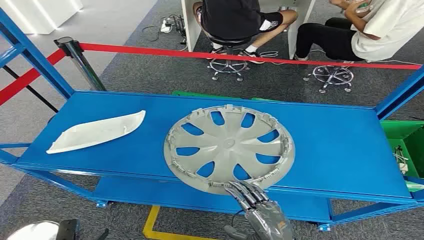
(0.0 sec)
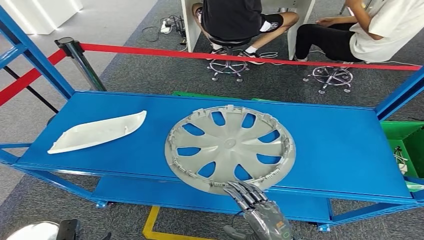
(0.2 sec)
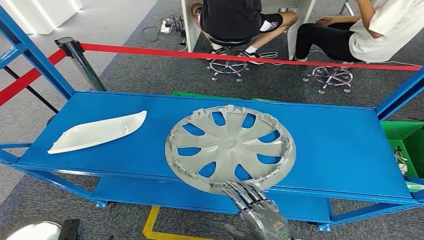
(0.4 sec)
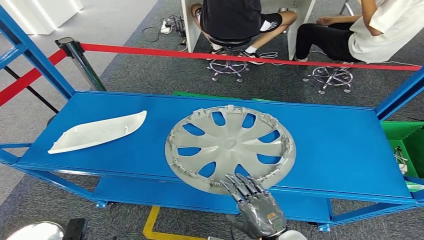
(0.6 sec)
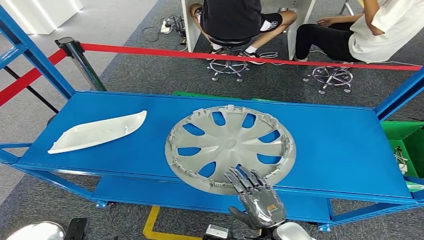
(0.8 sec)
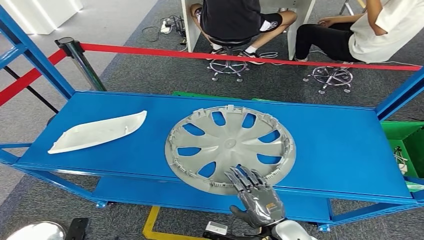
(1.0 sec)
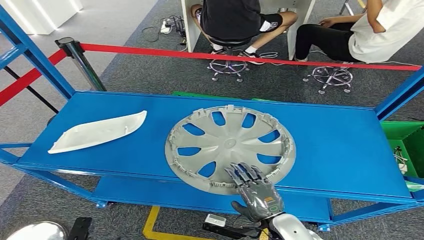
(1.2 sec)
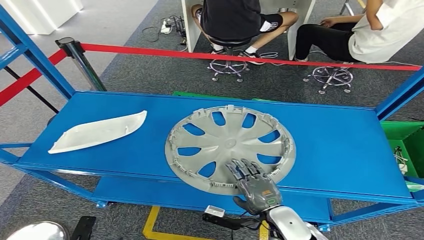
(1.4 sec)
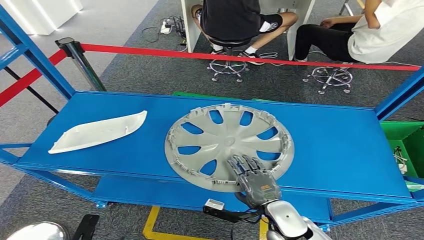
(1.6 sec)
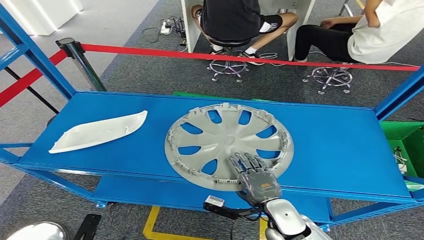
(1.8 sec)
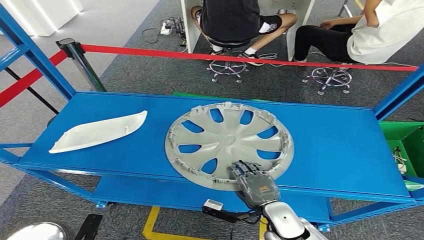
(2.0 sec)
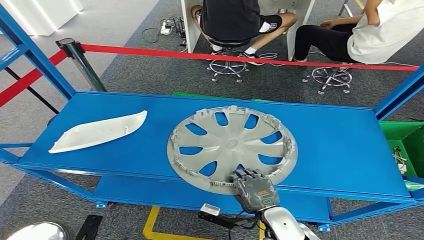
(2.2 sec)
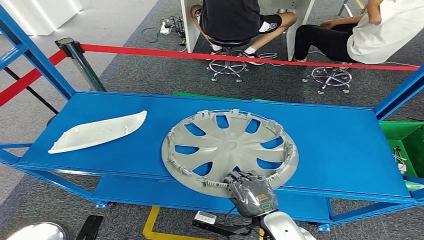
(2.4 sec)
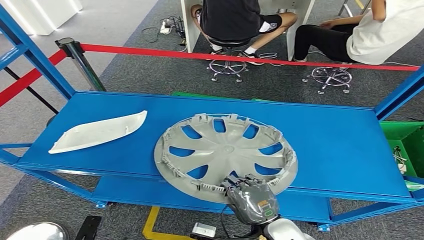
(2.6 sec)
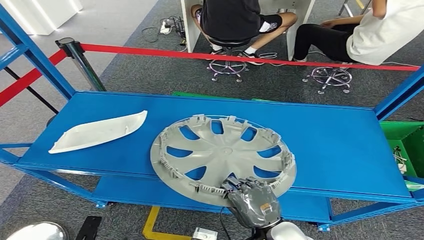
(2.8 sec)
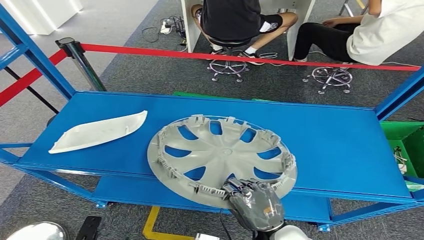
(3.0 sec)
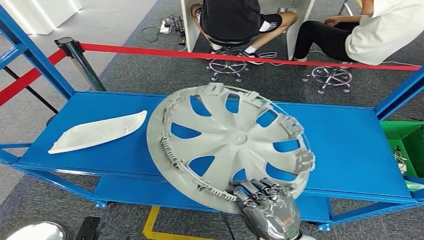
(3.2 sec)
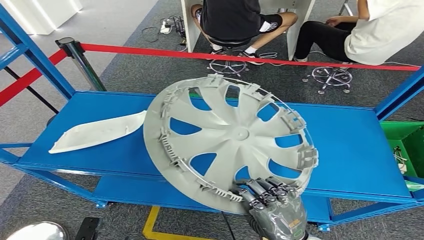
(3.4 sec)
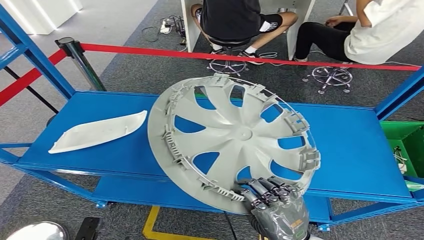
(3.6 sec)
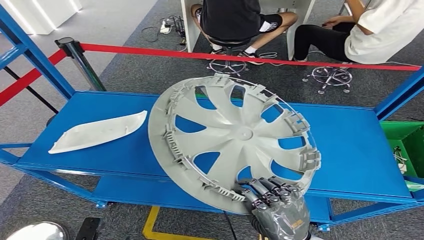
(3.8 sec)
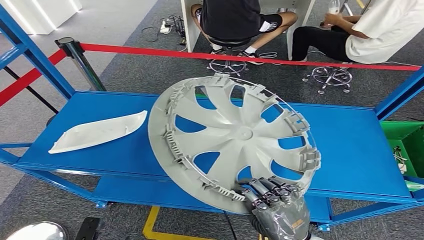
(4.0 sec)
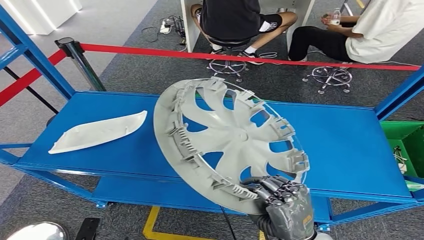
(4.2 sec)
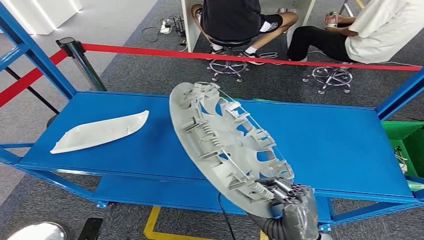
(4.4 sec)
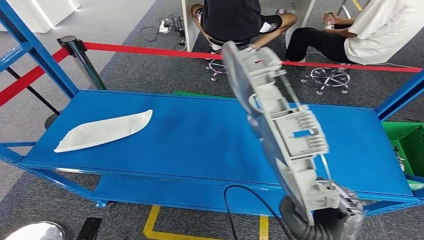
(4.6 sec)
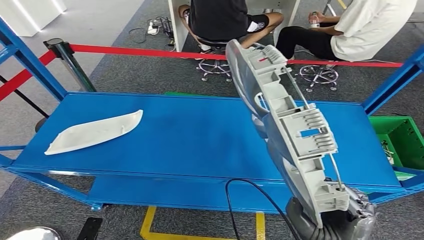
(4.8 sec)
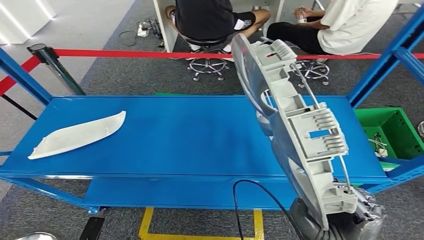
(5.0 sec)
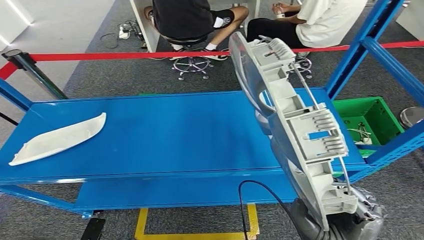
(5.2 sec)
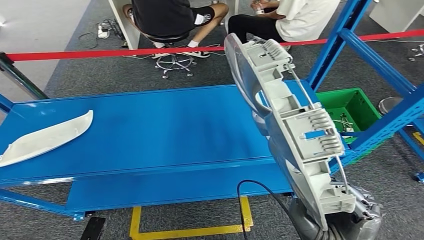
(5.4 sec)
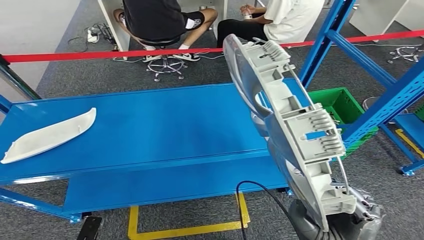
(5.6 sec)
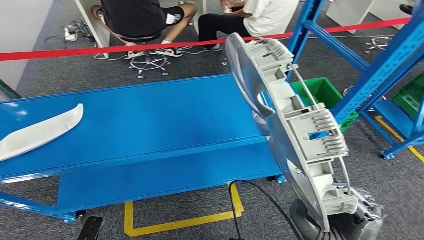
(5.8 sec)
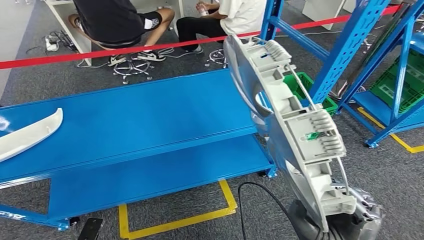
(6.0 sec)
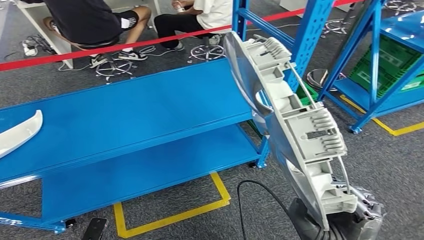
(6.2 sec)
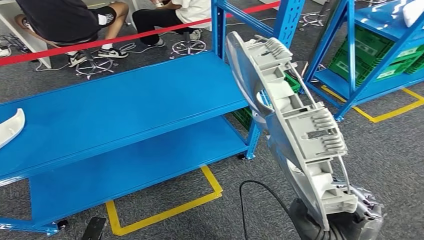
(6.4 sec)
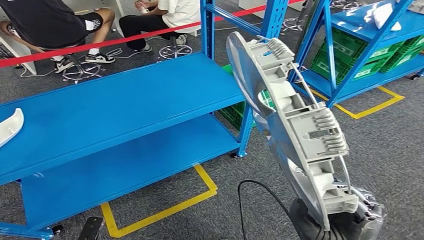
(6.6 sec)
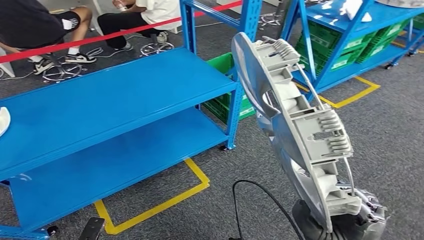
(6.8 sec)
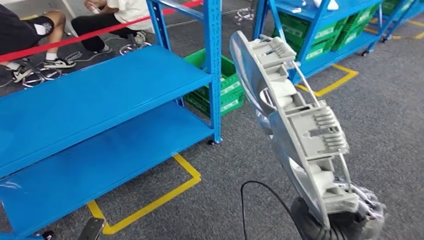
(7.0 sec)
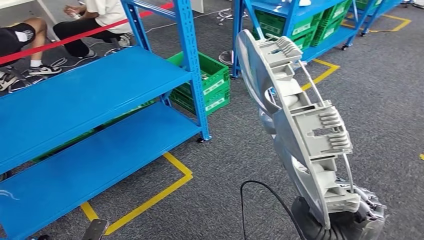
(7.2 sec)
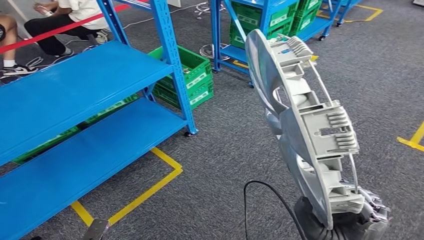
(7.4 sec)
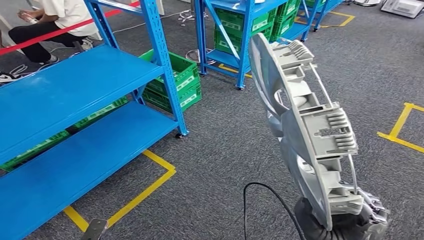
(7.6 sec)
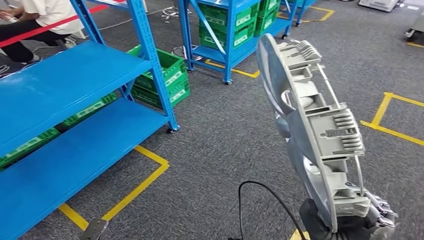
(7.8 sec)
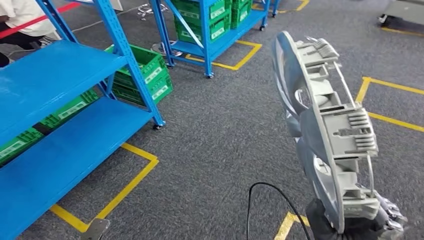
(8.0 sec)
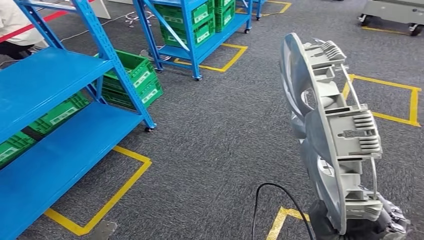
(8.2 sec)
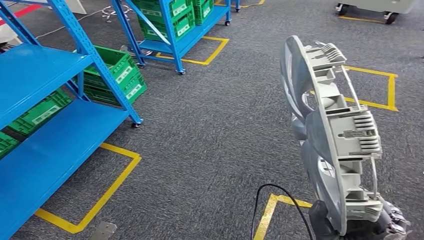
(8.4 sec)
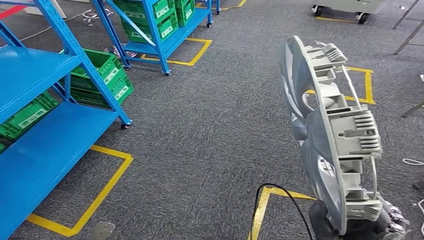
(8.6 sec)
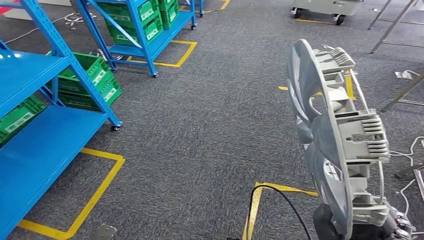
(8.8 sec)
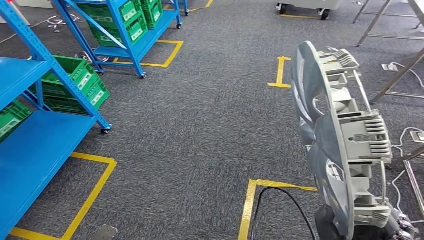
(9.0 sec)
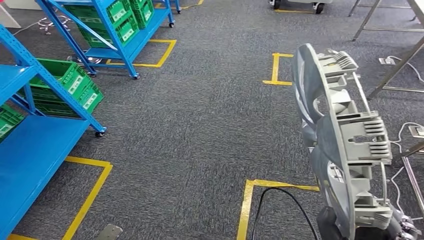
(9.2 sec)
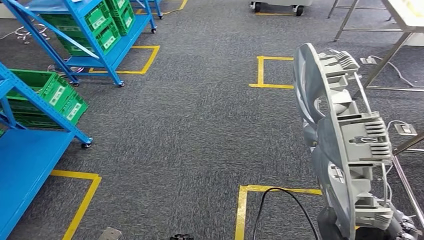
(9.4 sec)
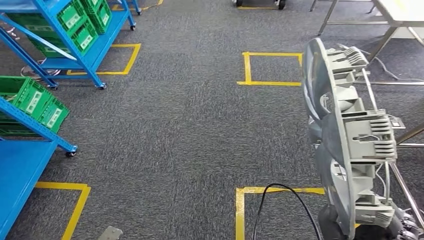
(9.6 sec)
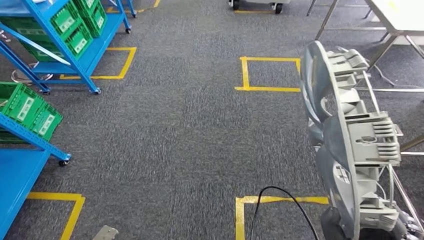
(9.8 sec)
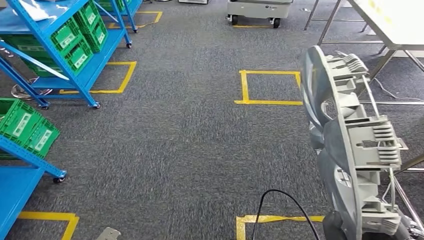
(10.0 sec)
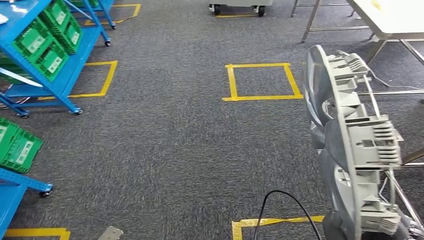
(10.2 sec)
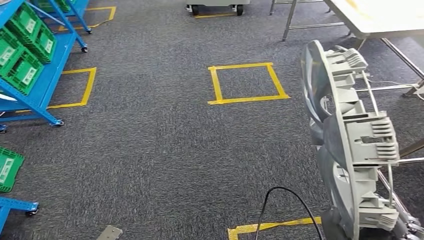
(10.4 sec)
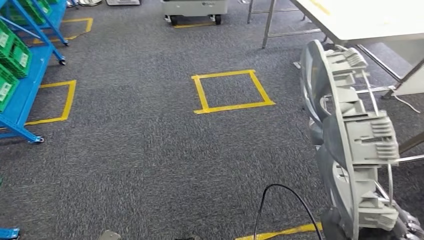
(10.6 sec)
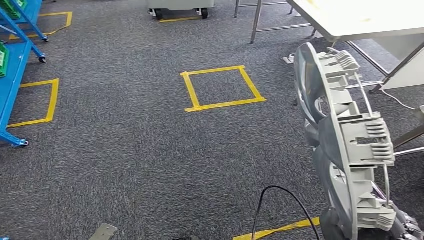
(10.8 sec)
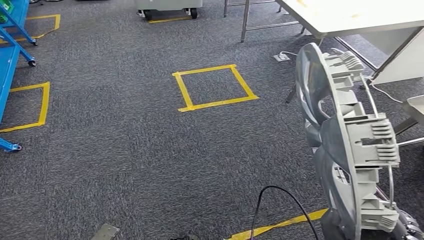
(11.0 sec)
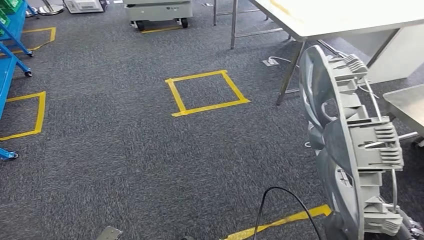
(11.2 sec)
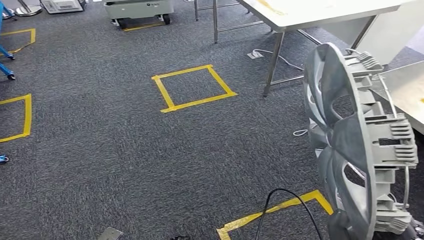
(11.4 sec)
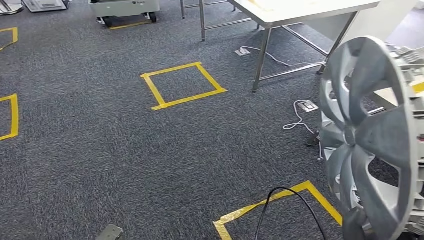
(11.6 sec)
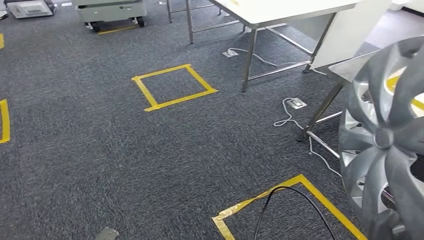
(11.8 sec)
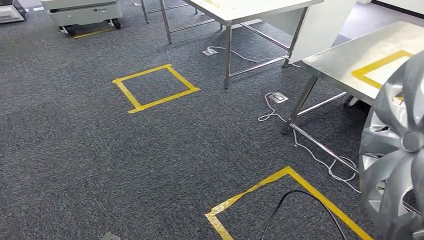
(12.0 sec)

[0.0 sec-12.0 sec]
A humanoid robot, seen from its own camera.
Step, 0.0 sec to 5.6 sec: Take small components from the rack.
1.6 sec to 3.0 sec: The right hand shifts roughly 10 cm upward and backward.

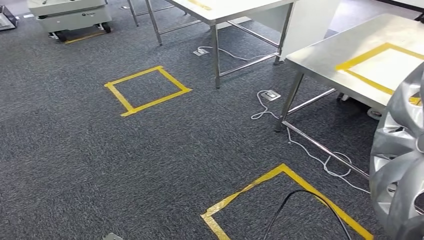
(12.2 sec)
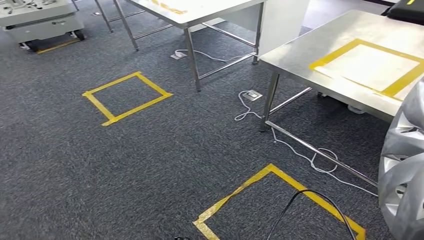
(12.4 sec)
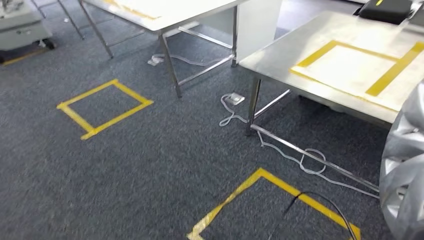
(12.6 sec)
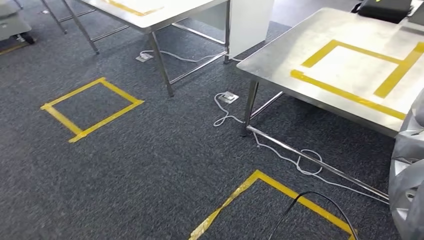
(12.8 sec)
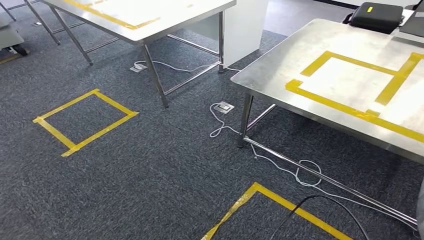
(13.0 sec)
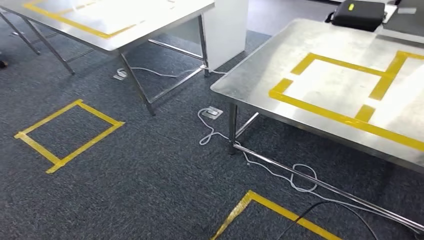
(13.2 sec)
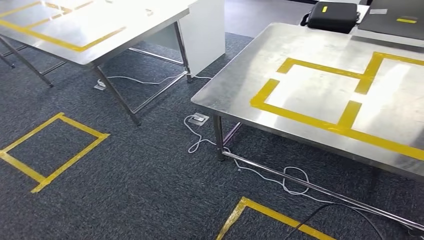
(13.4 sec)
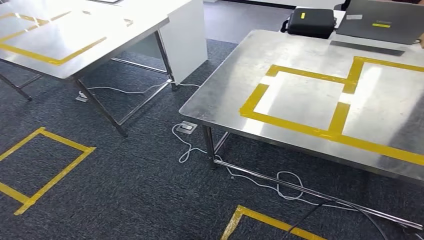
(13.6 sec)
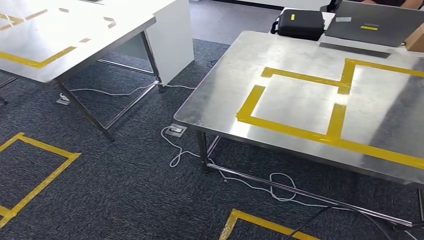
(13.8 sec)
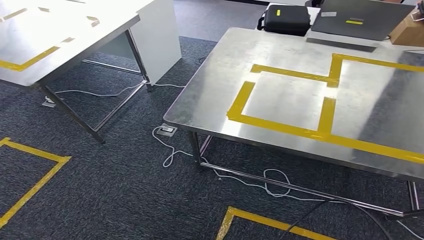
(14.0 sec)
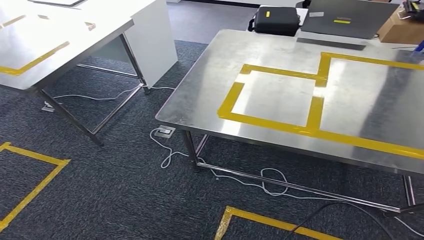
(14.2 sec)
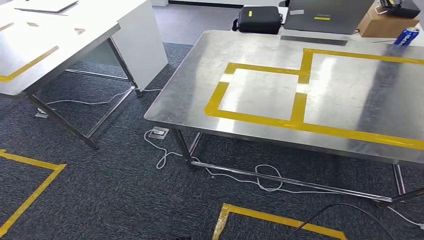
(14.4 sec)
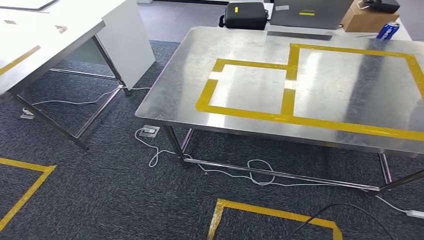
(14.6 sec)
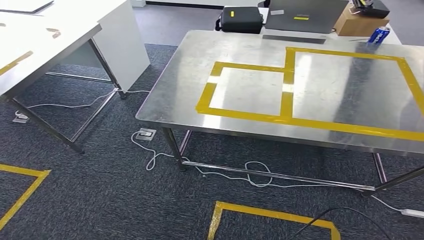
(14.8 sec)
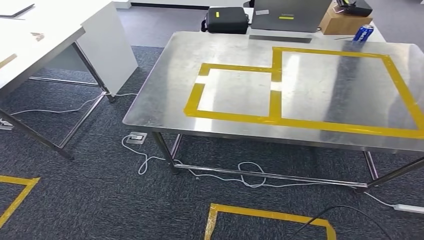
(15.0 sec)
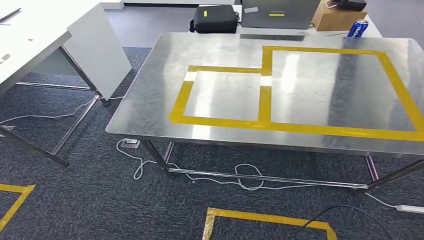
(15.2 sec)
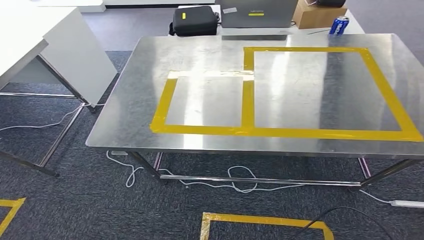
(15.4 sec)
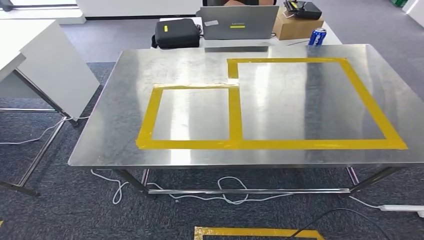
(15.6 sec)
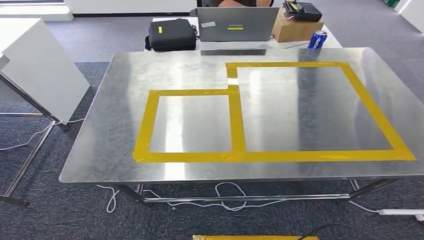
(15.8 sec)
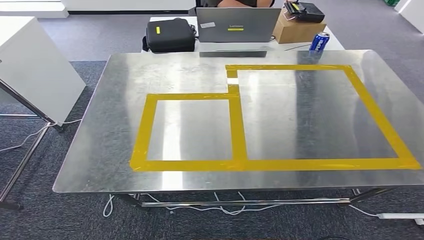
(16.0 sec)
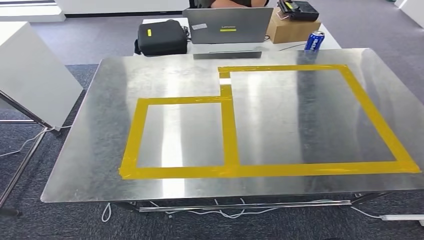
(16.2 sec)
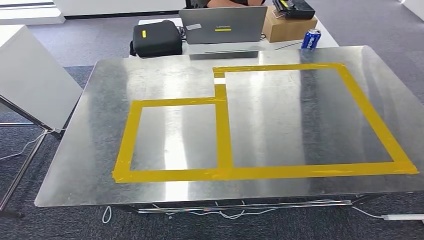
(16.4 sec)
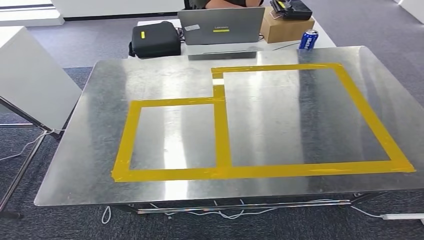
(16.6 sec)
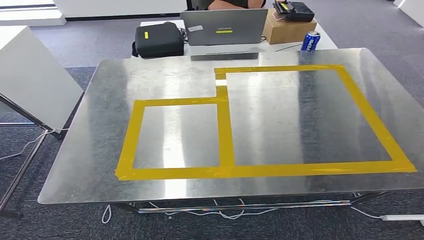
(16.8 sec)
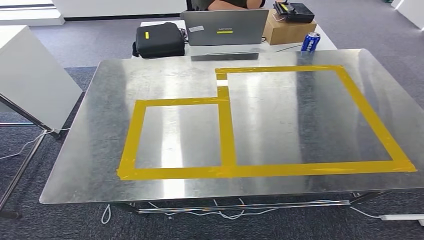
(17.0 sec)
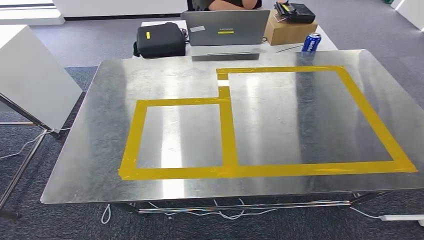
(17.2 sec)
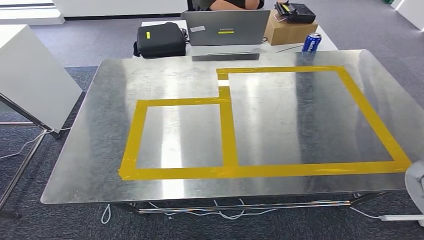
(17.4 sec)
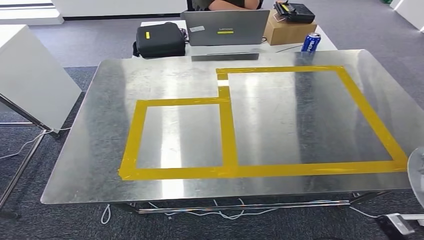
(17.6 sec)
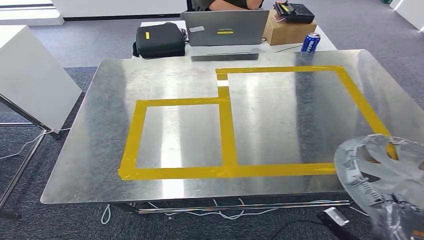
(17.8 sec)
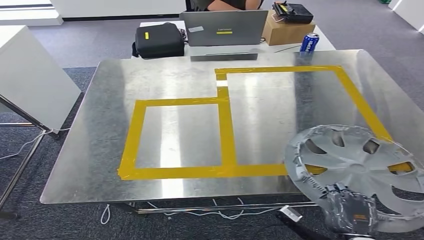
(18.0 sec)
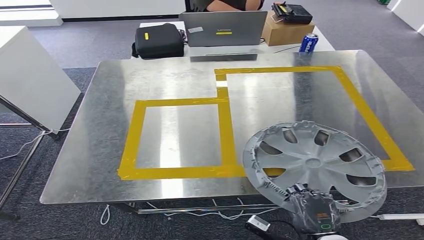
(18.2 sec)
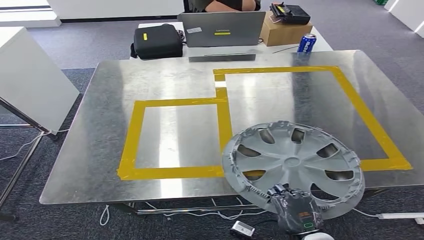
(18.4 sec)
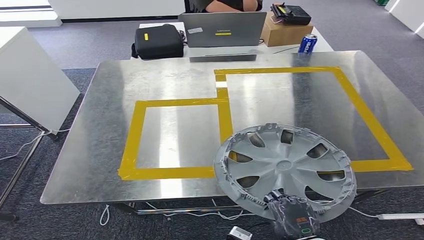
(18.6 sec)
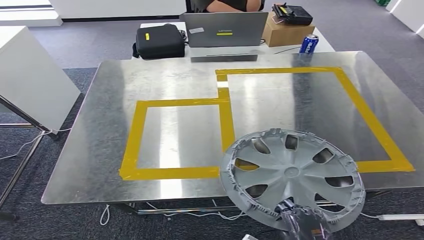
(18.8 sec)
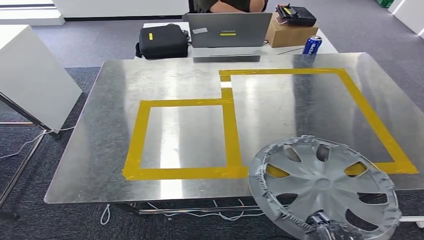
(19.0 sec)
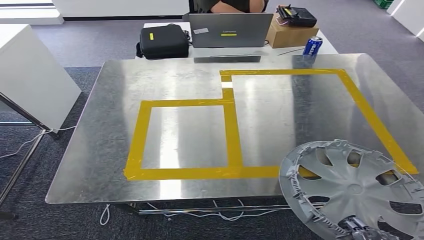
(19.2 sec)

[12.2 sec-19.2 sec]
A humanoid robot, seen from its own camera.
Step, 12.2 sec to 14.8 sec: Move the small parts to the workbench.
16.4 sec to 17.8 sec: The right hand heads forward and to the left, covering about 20 cm.
